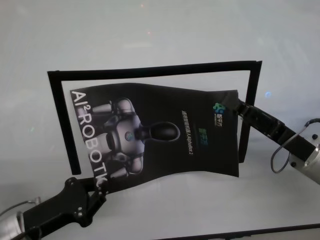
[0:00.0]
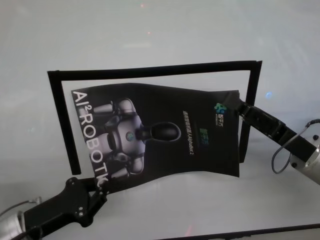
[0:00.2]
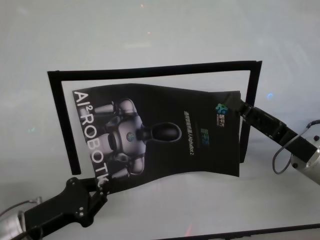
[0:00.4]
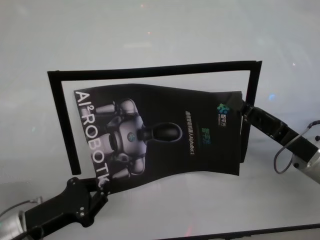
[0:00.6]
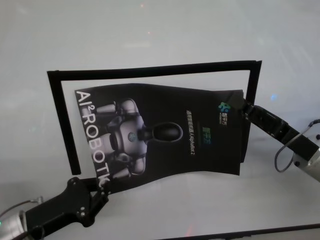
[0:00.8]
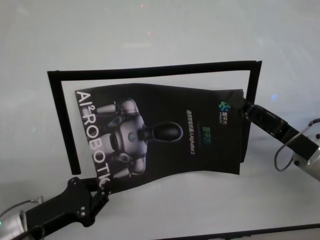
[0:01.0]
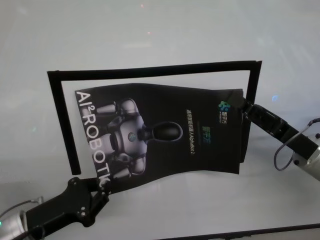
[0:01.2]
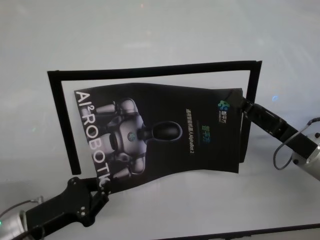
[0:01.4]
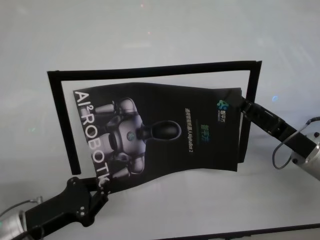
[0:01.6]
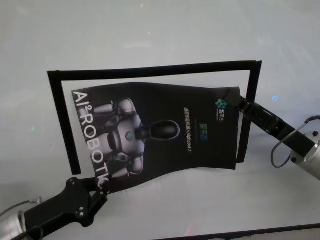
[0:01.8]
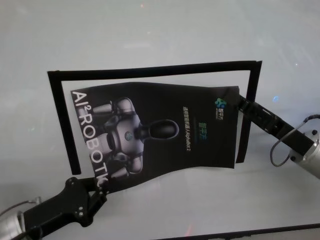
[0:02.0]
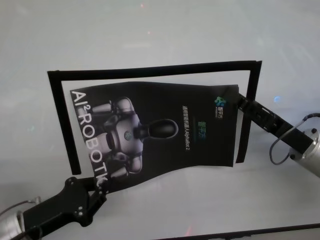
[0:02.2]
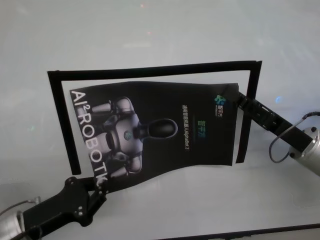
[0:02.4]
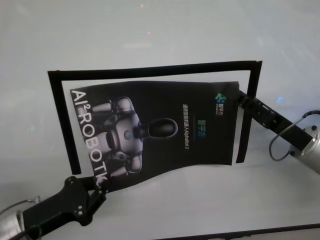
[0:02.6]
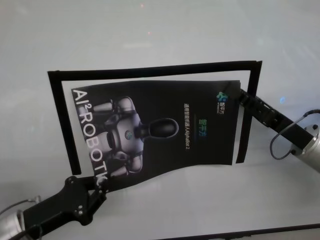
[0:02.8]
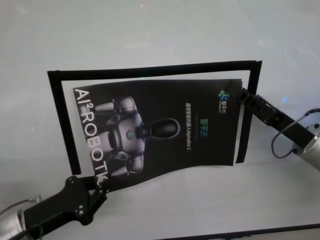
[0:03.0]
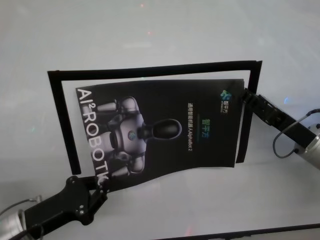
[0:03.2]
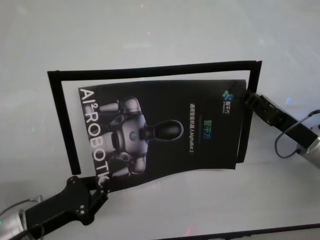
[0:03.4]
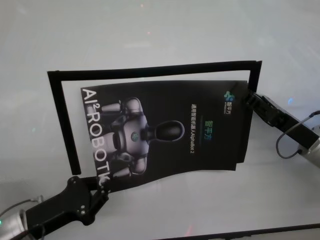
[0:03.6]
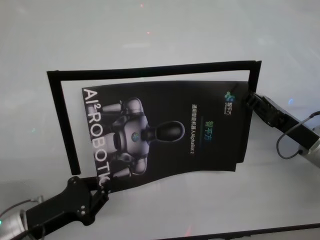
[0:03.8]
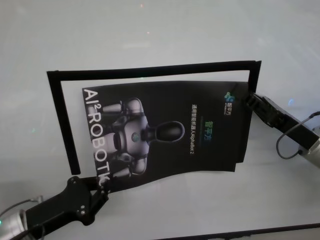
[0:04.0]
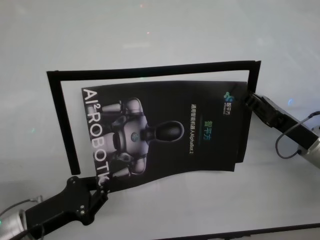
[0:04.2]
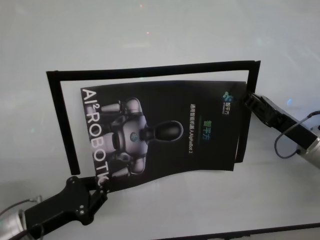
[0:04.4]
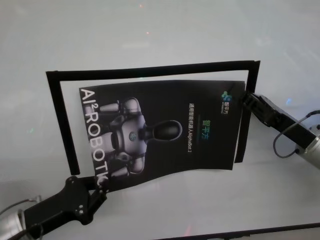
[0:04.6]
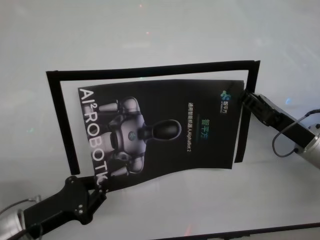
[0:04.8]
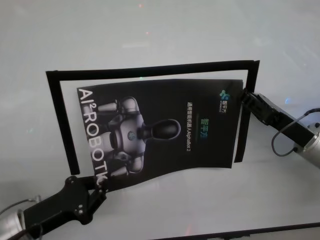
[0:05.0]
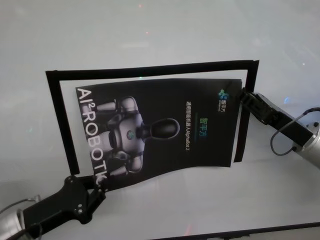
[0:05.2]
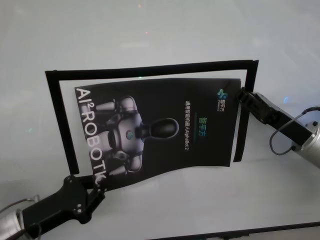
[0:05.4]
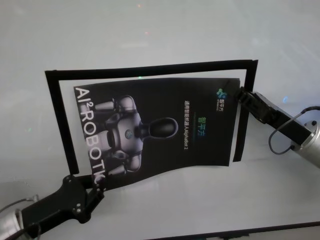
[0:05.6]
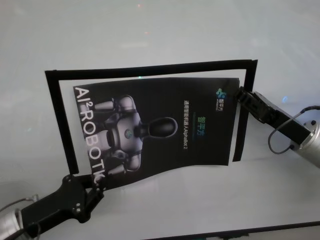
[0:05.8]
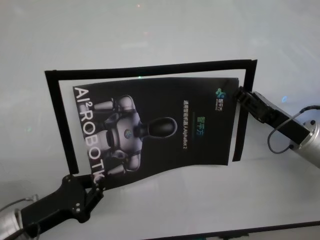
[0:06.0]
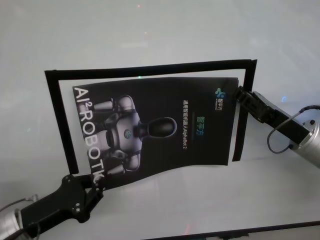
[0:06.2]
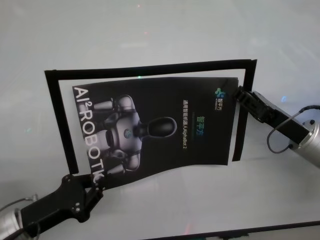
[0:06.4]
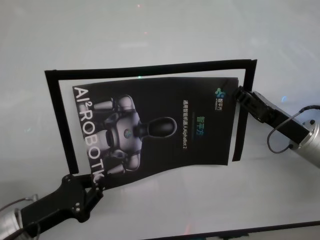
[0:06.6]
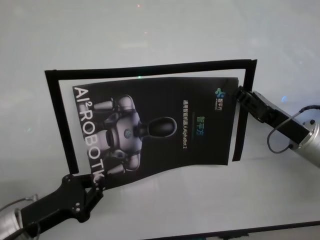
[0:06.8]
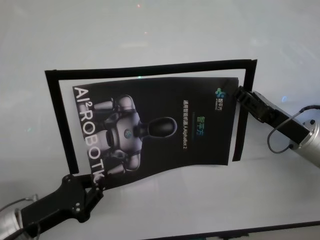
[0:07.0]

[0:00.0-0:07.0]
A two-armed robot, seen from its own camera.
Task of the whole recording: stick the poster on the table by hand.
Step, 0:00.0 to 0:05.6: Stick the advertisement in the top-right corner area with both grippers.

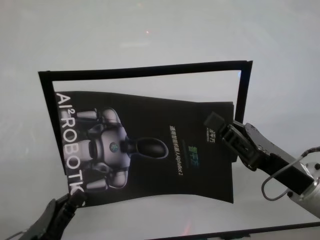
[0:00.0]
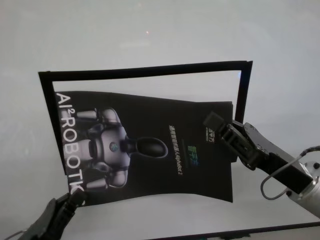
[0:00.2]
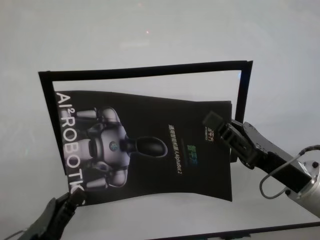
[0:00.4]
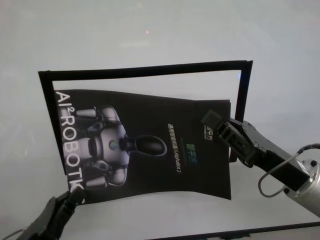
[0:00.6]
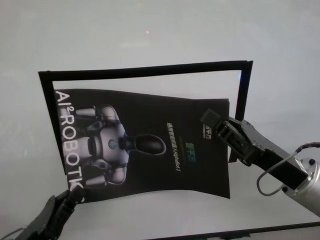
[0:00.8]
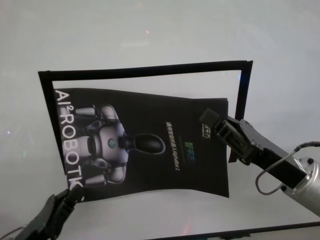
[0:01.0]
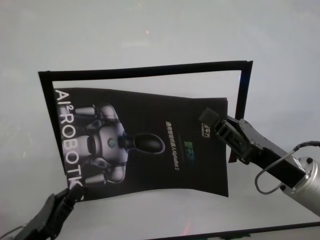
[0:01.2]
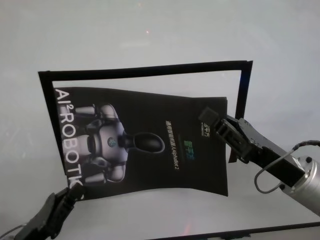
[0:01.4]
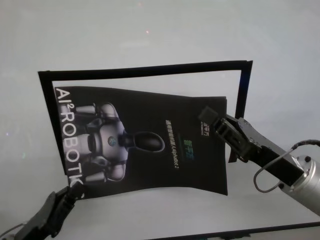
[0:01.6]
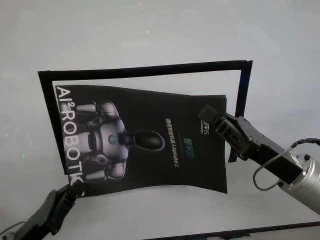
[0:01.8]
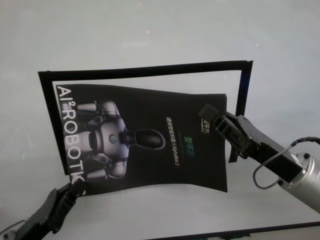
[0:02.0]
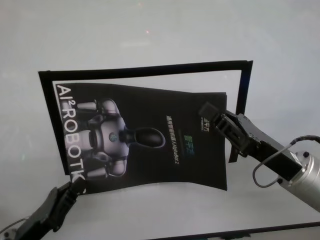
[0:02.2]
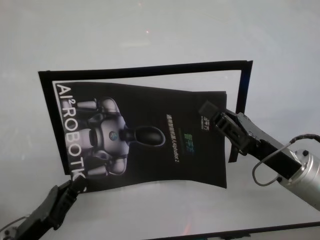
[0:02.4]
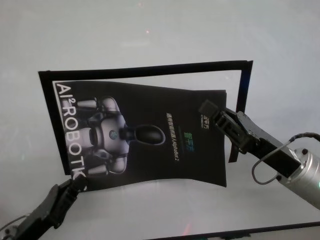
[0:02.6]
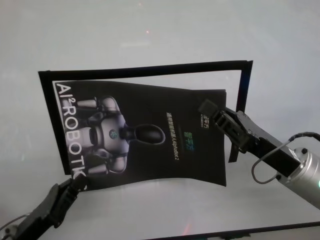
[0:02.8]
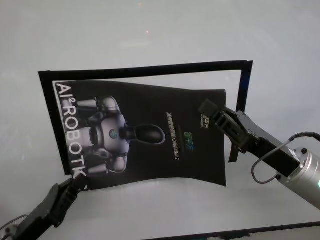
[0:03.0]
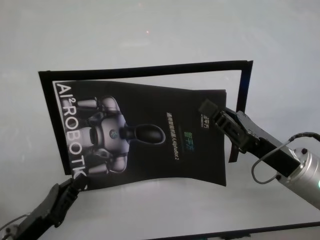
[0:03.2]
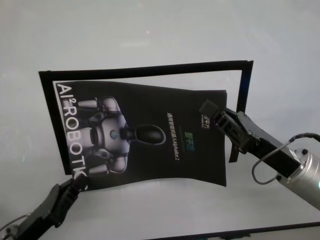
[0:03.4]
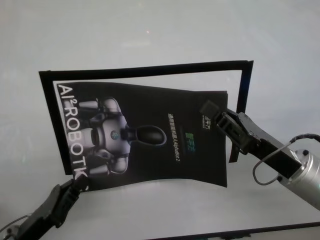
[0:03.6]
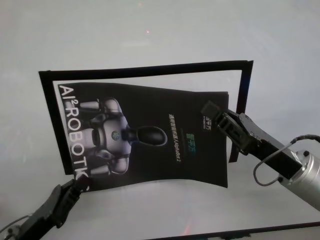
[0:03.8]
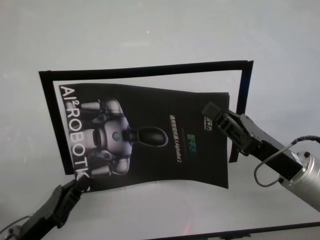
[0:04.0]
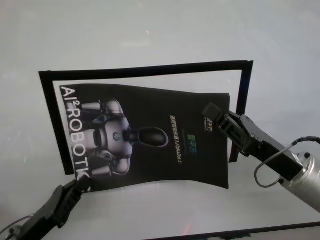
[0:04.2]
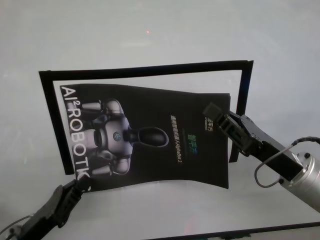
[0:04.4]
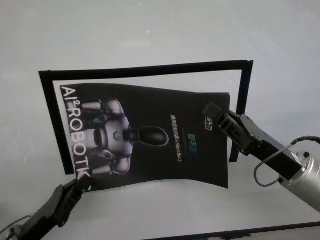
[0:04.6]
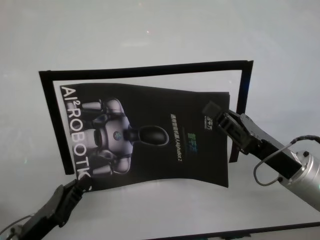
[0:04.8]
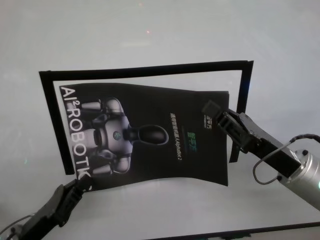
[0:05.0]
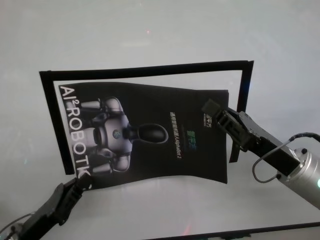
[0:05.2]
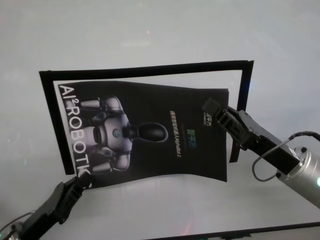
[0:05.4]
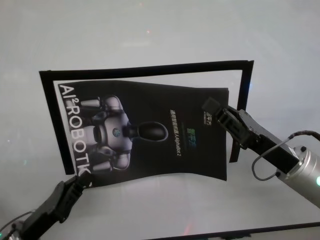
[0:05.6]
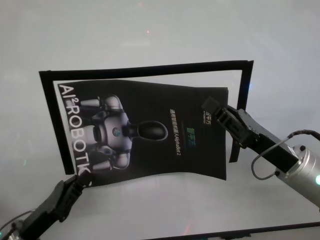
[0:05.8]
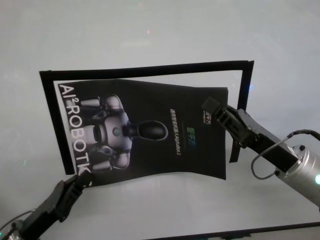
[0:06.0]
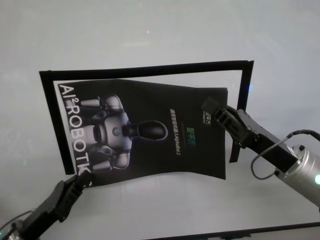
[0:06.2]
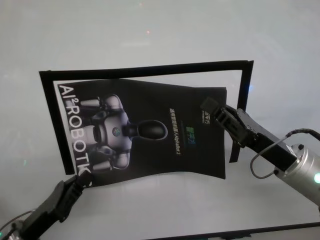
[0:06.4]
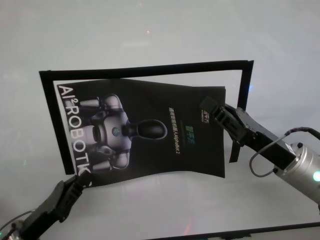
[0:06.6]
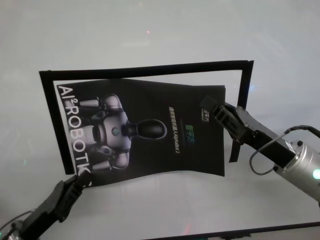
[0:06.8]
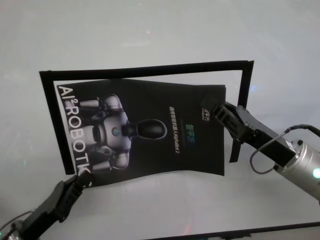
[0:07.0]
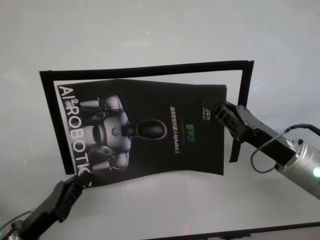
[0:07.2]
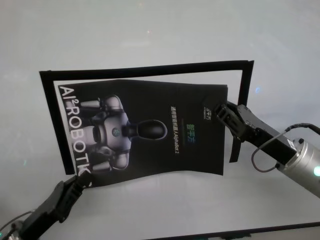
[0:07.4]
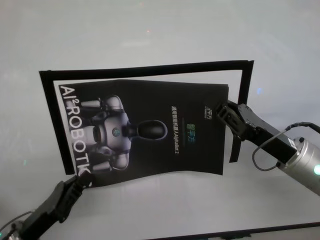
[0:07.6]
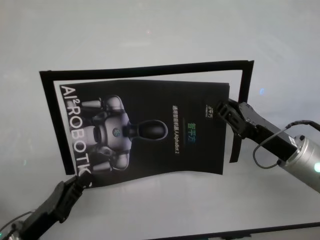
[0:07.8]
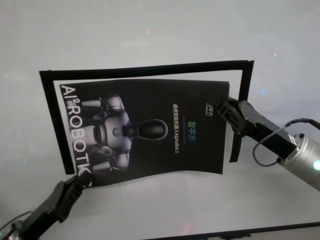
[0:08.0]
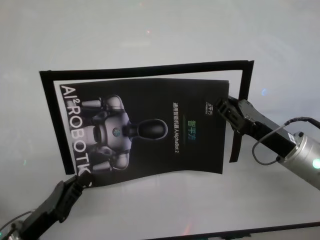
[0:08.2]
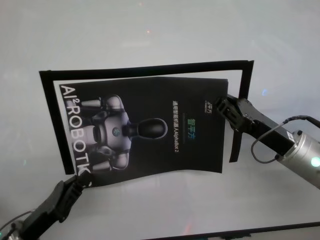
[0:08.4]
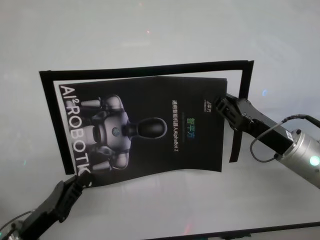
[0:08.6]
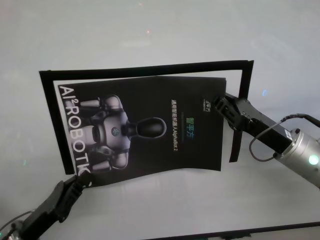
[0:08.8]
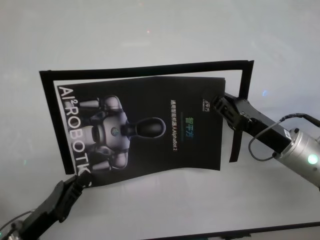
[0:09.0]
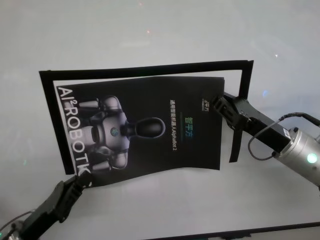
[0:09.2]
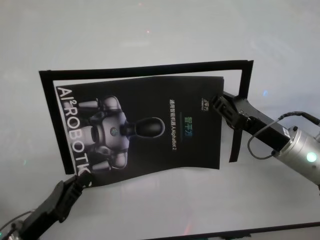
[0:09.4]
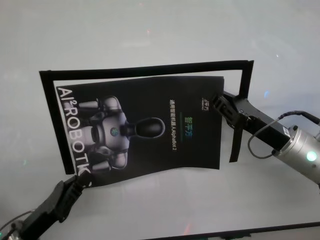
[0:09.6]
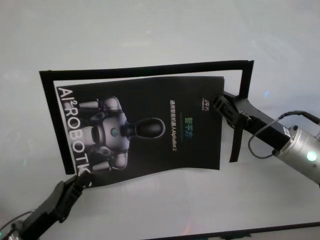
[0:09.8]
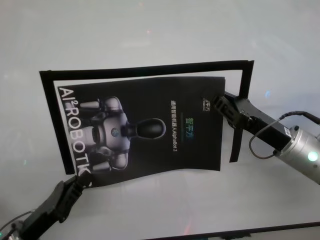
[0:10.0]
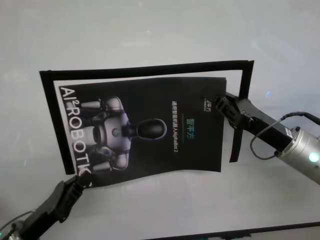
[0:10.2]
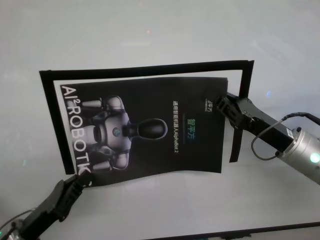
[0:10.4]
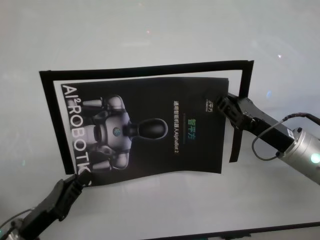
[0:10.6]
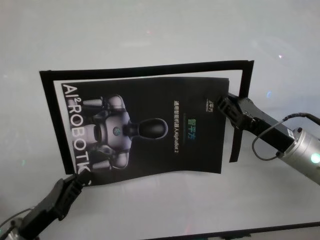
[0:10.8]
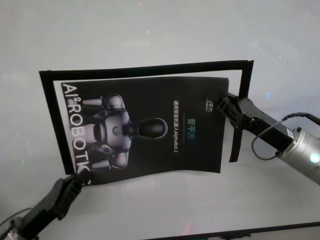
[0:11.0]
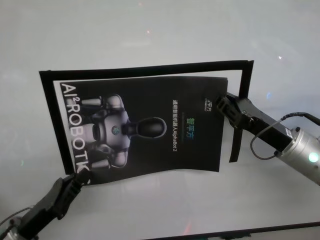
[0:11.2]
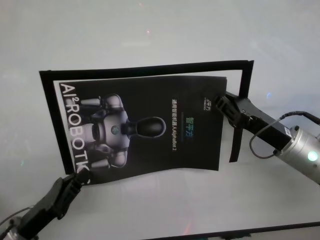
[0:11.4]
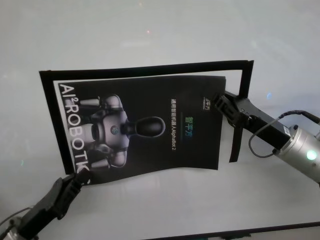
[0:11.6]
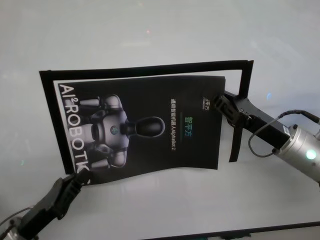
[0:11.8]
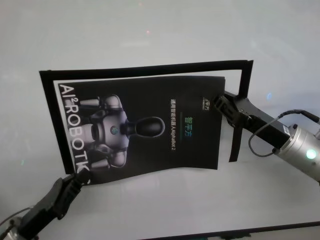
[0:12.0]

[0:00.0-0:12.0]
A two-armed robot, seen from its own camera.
Task of the whole recording: stick the poster on the table by hand.
Step, 0:00.0 to 0:10.8: Stick the advertisement in the top-right corner area with both grippers.
